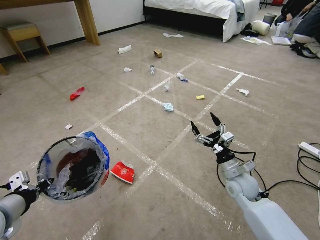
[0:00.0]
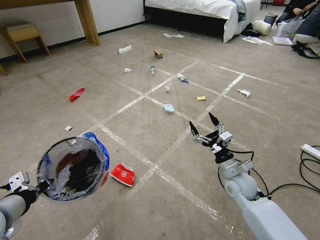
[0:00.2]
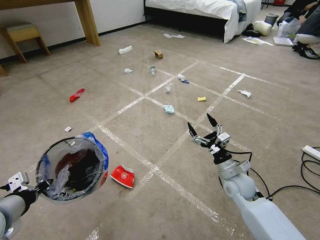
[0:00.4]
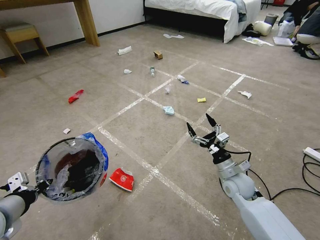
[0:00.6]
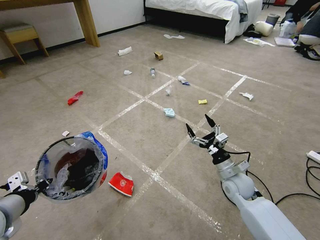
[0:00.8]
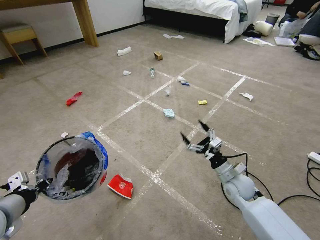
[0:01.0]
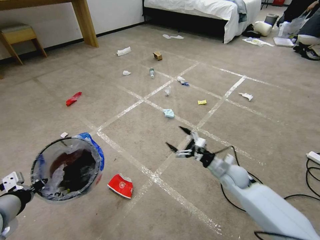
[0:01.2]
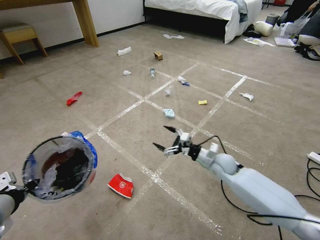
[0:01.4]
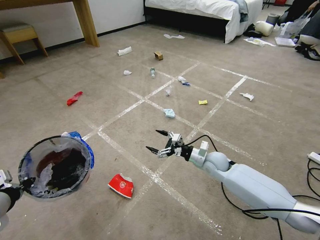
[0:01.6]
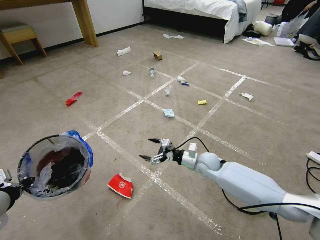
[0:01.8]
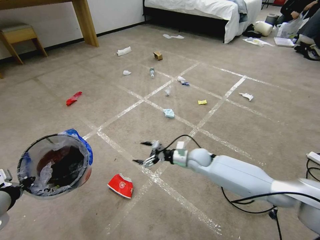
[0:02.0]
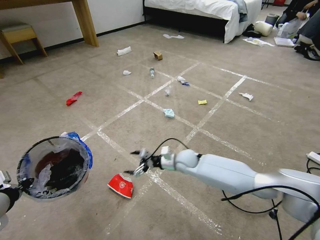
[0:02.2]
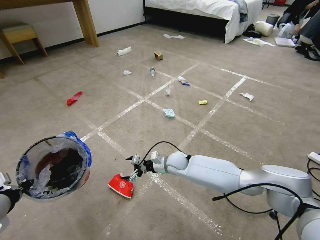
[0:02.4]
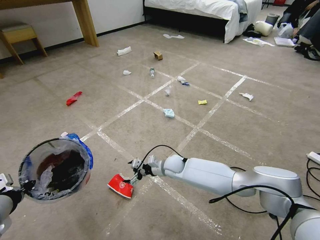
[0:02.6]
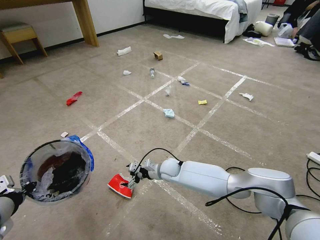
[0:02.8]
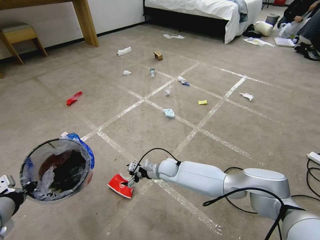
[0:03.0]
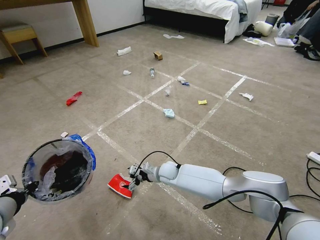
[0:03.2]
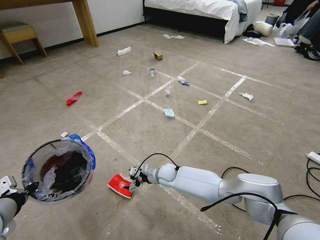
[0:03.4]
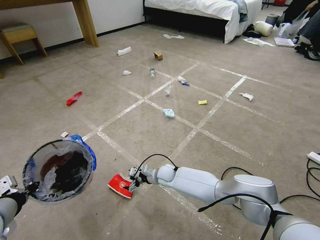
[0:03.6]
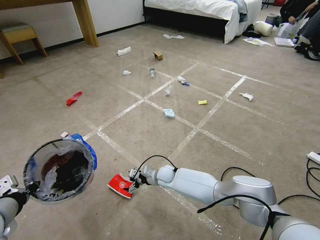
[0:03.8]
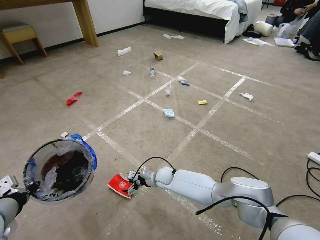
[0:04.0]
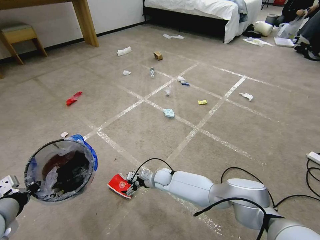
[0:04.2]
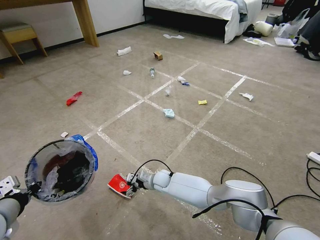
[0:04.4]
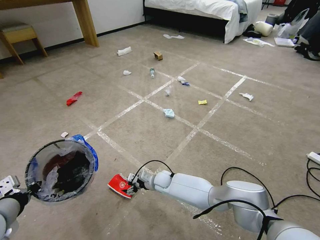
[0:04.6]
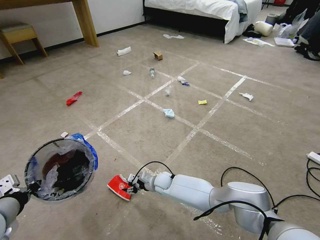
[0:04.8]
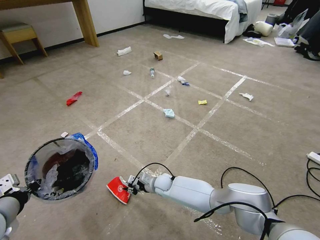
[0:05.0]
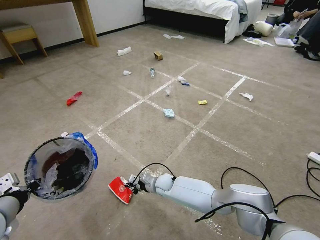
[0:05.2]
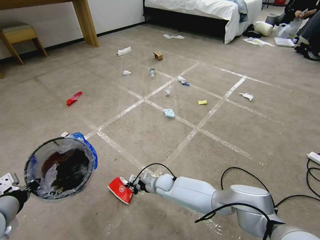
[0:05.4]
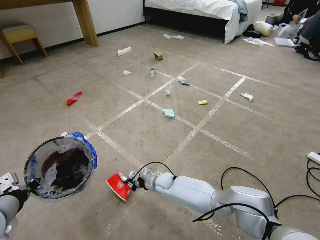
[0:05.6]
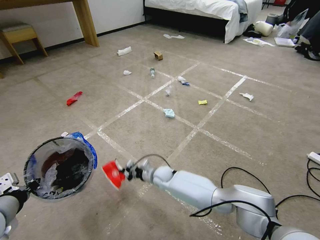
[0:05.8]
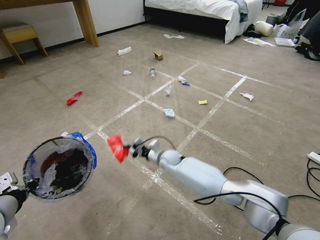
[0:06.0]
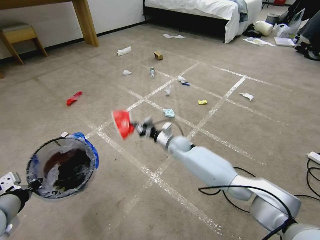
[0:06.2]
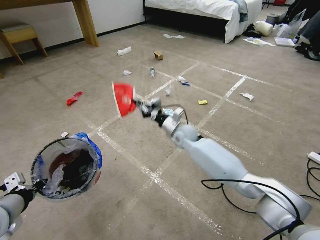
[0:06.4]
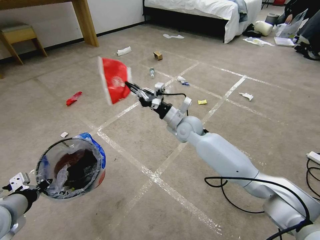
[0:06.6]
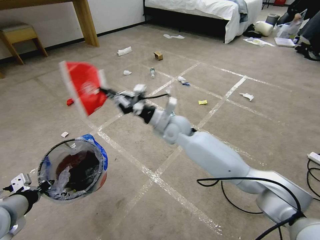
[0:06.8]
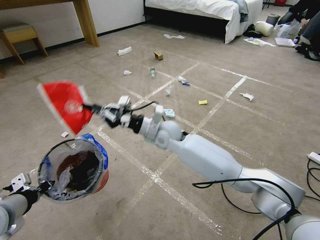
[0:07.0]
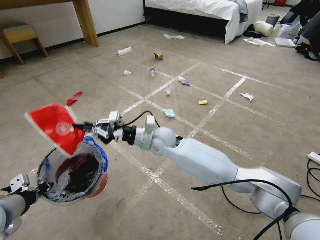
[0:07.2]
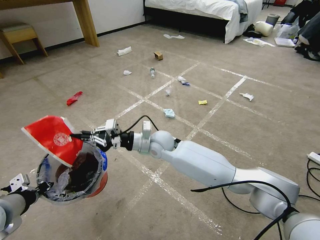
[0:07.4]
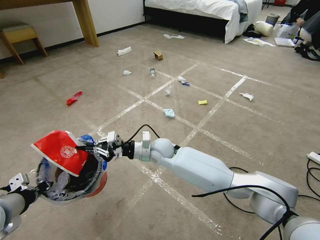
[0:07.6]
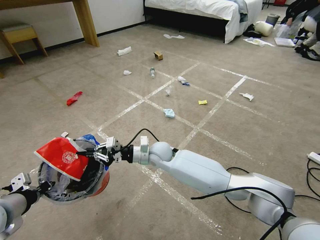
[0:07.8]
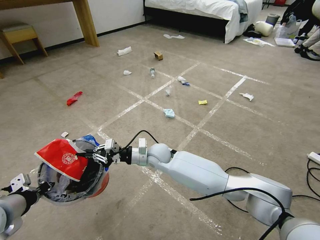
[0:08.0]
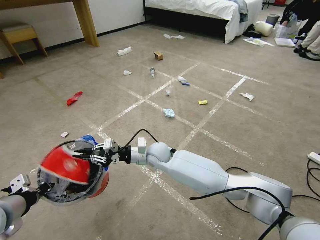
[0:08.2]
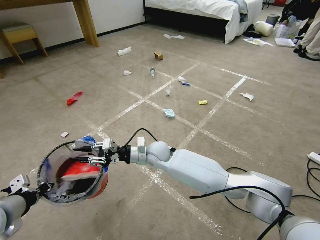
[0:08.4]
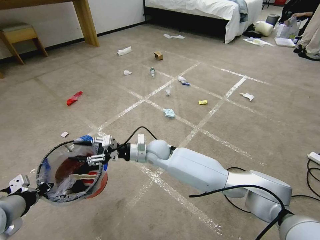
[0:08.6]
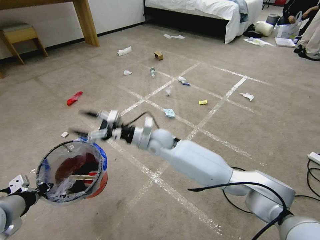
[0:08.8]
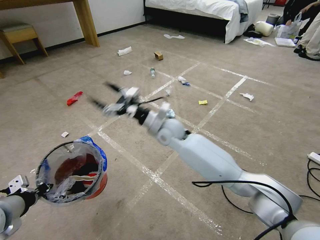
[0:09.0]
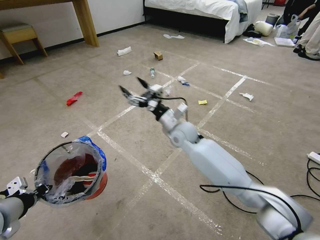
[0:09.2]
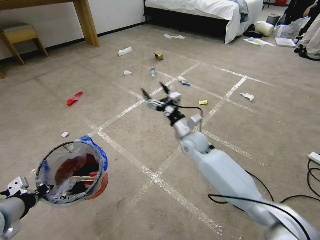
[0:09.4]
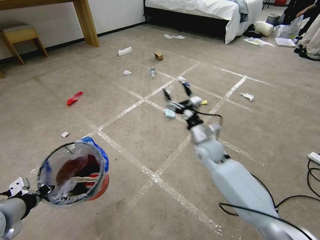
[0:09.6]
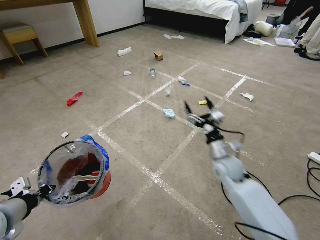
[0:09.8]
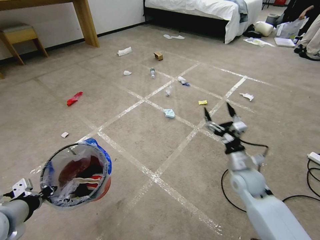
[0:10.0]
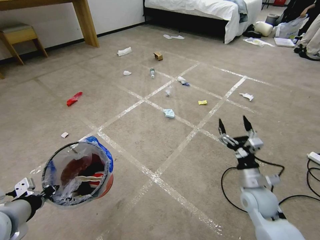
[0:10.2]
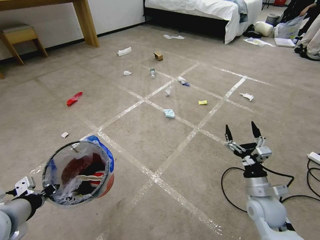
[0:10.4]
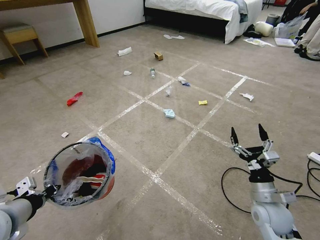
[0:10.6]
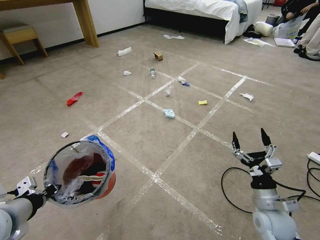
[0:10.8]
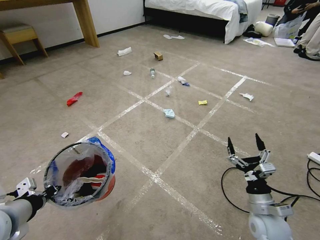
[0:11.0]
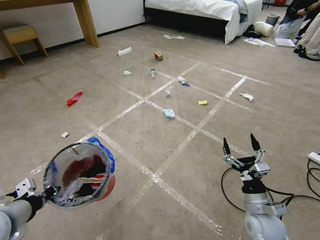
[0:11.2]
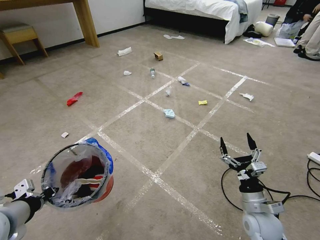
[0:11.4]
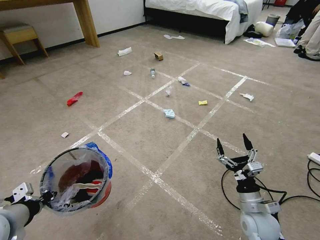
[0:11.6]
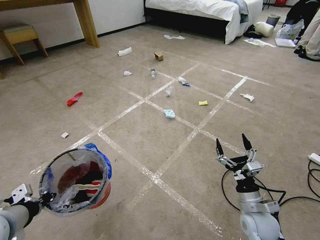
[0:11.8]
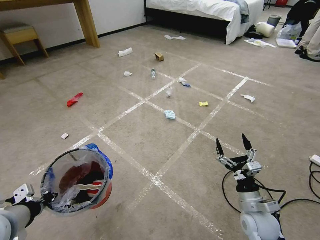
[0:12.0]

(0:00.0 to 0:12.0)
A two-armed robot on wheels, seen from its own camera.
Task of the whole recording: Pick up the trash bin and place the garbage on the floor into it.
0:00.0 - 0:01.6: The right gripper shifts about 10 cm forward and to the left.
0:01.6 - 0:03.0: The right gripper is displaced to the left and downward by approximately 20 cm.
0:03.0 - 0:04.4: The right gripper goes approximately 5 cm downward.
0:04.4 - 0:06.0: The right gripper is displaced upward by some 10 cm, and closes its fingers.
0:06.0 - 0:07.6: The right gripper shifts about 15 cm upward.
0:07.6 - 0:09.0: The right gripper travels upward by some 5 cm, and opens its fingers.
0:09.0 - 0:10.4: The right gripper goes approximately 40 cm to the right, backward and downward.
0:10.4 - 0:12.0: The grippers stay close to where they were, moving slightly.

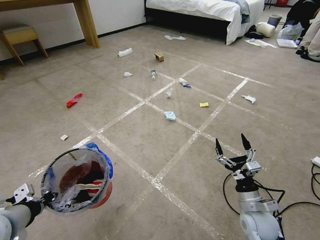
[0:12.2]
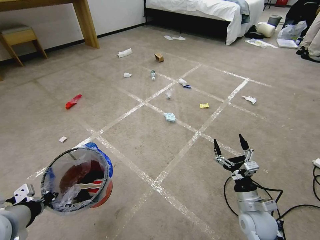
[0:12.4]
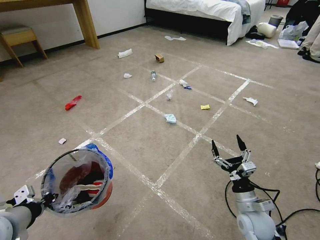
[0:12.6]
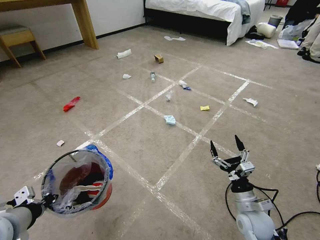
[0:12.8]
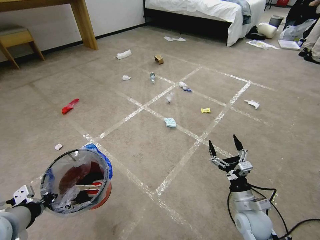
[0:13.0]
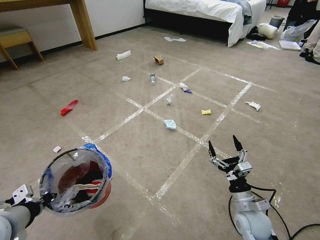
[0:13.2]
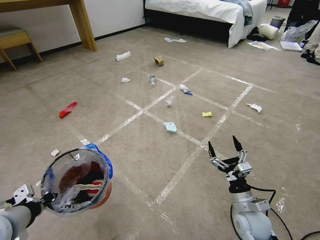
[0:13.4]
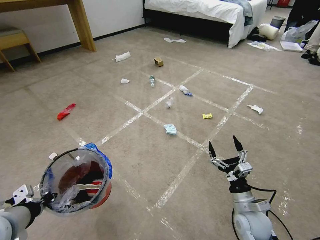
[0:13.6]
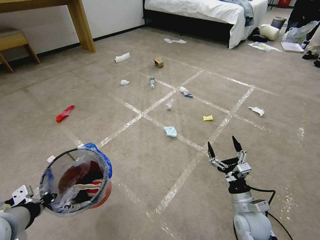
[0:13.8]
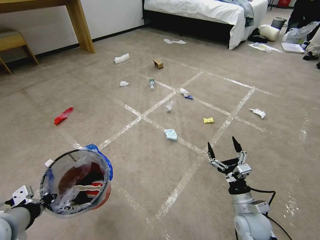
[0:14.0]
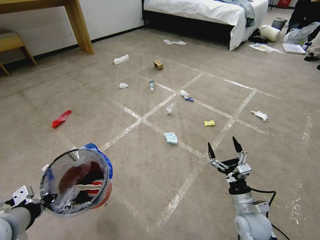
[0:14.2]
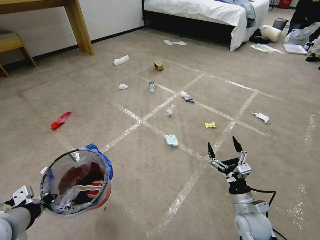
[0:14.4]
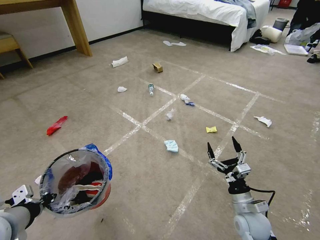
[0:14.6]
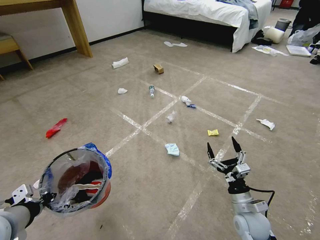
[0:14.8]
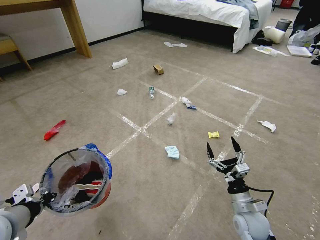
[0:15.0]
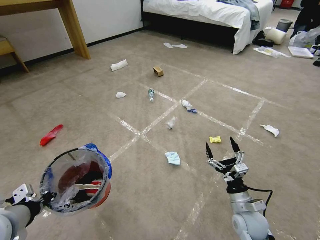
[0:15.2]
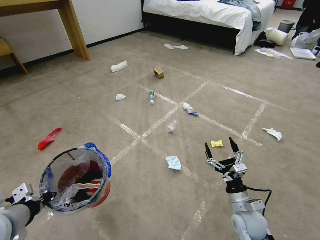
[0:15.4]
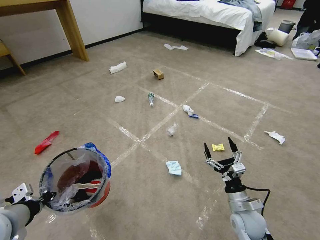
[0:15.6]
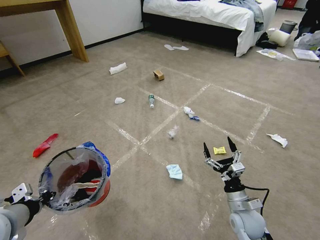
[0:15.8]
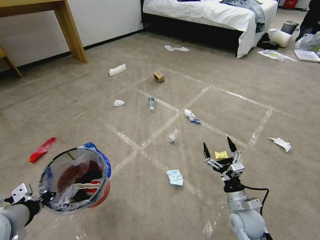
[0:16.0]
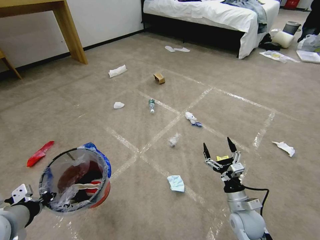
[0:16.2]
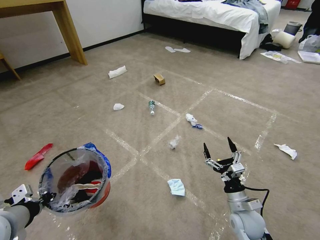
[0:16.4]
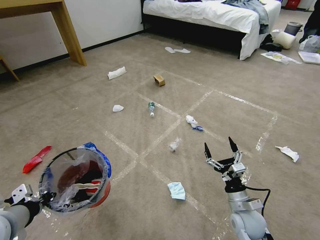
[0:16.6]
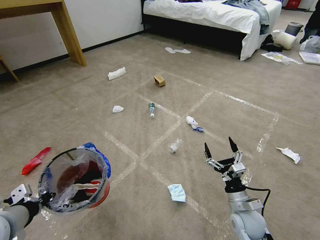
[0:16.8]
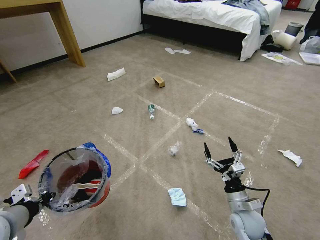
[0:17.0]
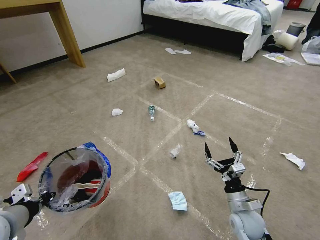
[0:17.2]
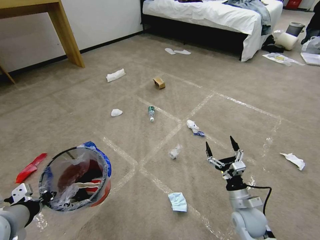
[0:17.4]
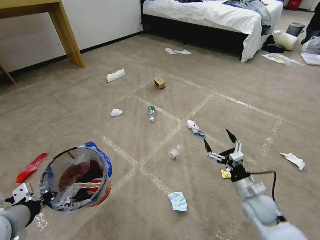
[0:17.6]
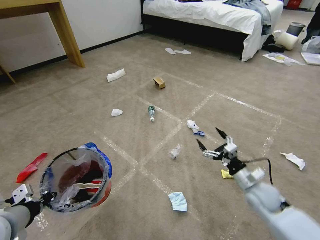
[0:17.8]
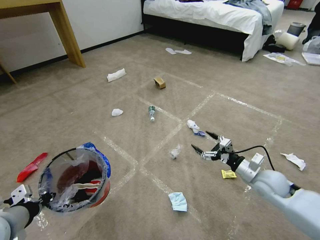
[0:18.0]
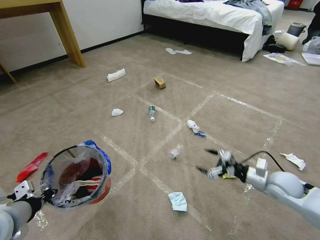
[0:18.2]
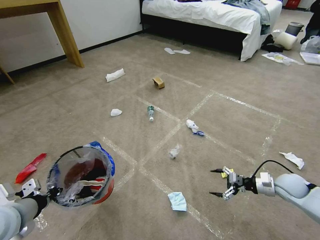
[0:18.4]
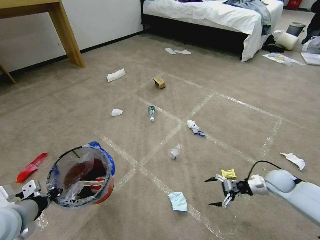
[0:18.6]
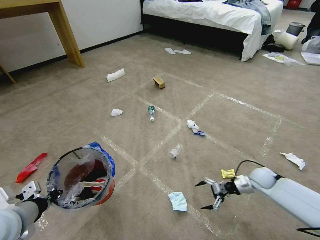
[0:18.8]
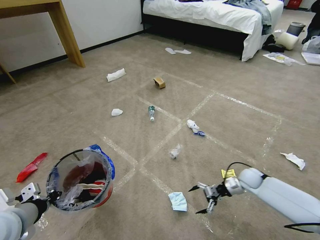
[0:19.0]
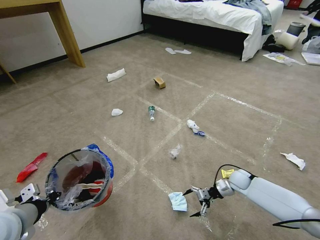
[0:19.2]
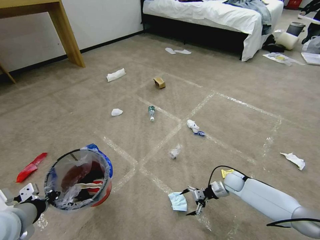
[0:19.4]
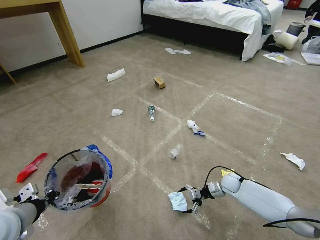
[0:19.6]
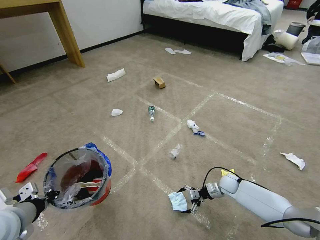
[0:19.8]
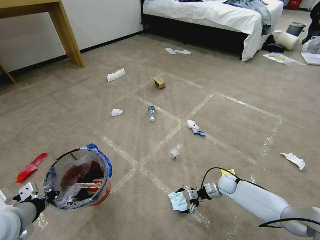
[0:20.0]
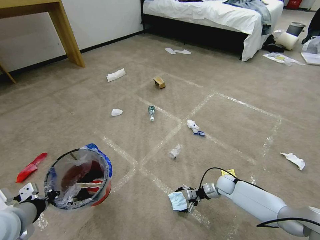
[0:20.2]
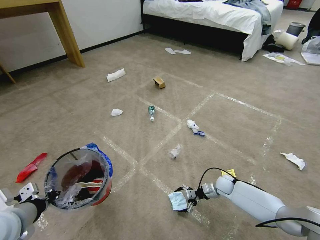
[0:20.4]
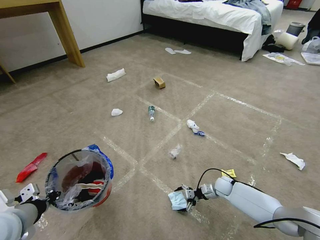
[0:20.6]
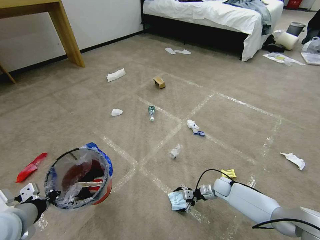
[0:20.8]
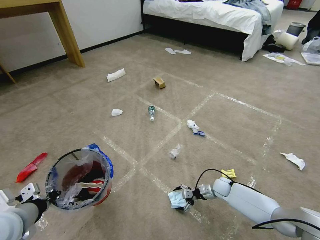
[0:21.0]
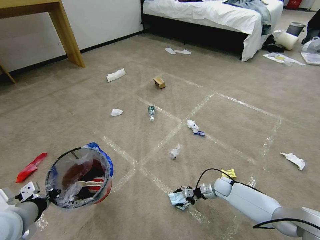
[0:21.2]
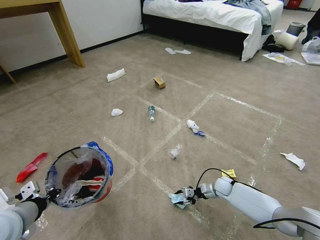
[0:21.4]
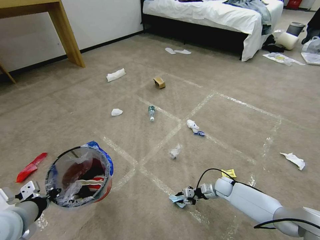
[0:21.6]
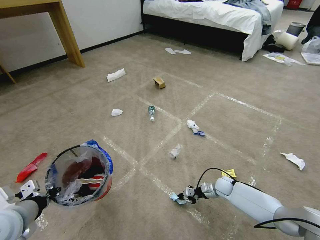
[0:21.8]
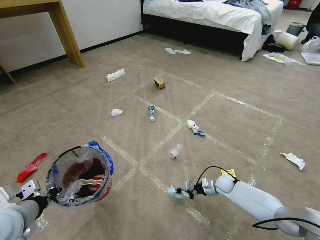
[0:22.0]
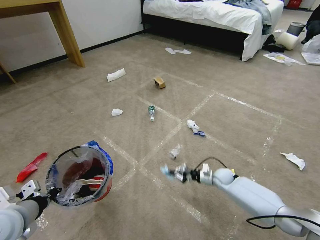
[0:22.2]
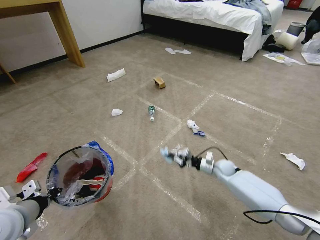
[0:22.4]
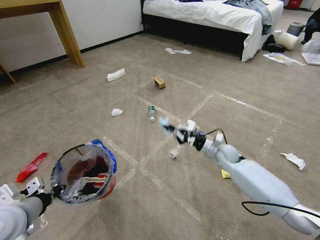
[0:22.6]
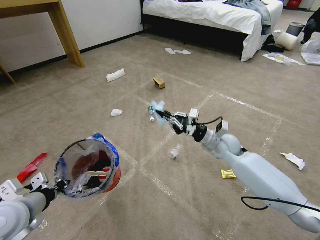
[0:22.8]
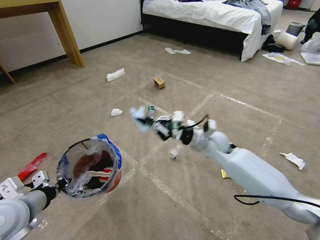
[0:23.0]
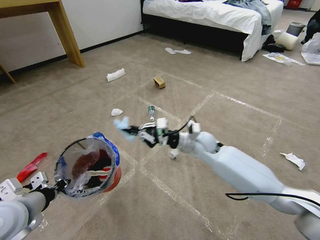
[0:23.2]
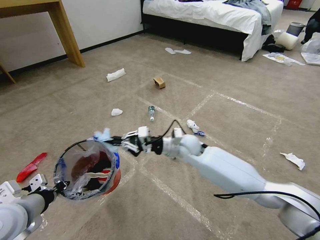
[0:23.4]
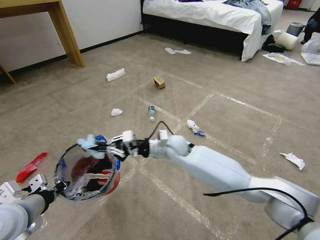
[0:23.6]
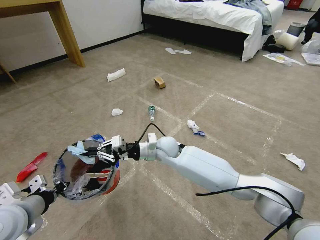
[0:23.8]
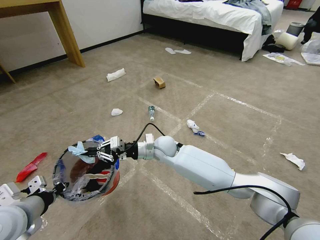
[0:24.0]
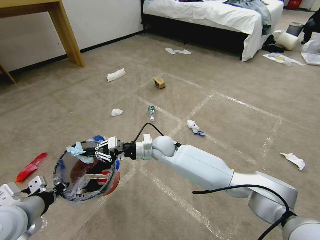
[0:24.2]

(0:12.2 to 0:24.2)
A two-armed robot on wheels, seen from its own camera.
Task of the whole recording: Pick up the trash bin and place the garbage on the floor into it.
0:12.2 - 0:13.8: The grippers make only small movements.
0:13.8 - 0:15.2: Neither gripper changes place.
0:15.2 - 0:16.6: Neither gripper changes place.
0:16.6 - 0:18.2: The right gripper travels to the right, upward and forward by about 15 cm.
0:18.2 - 0:19.8: The right gripper travels downward, forward and to the left by some 25 cm.
0:19.8 - 0:21.2: The grippers stay close to where they were, moving slightly.
0:21.2 - 0:22.6: The right gripper travels upward by approximately 20 cm, and closes up.
0:22.6 - 0:24.2: The right gripper moves to the left, approximately 25 cm.
